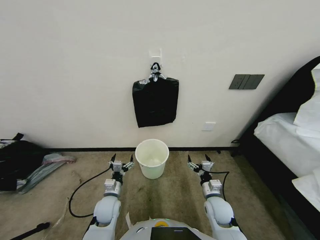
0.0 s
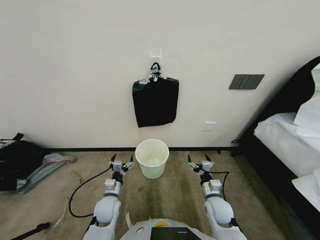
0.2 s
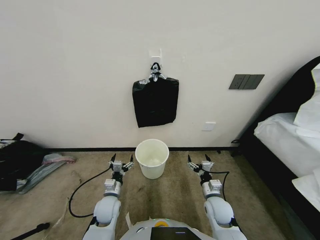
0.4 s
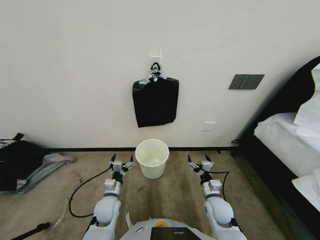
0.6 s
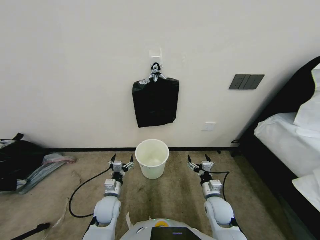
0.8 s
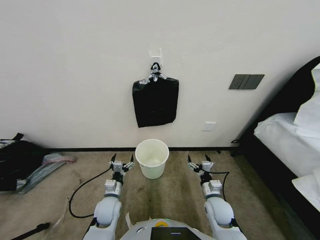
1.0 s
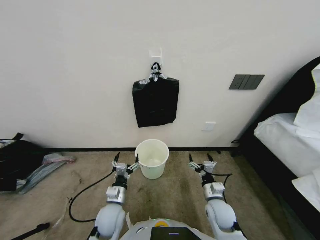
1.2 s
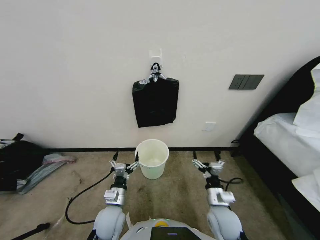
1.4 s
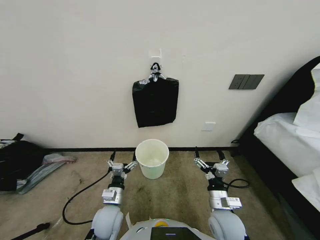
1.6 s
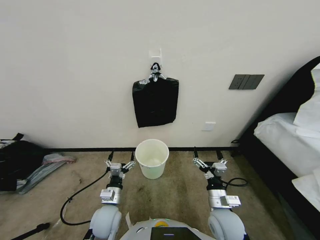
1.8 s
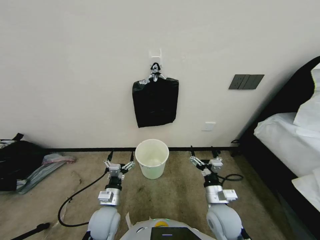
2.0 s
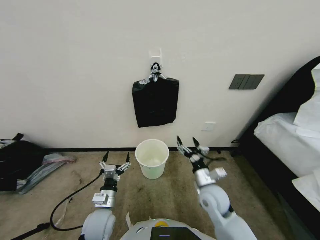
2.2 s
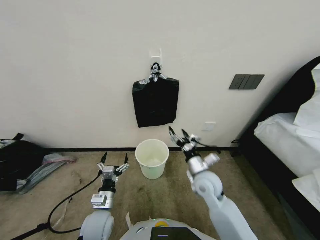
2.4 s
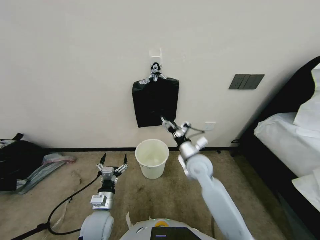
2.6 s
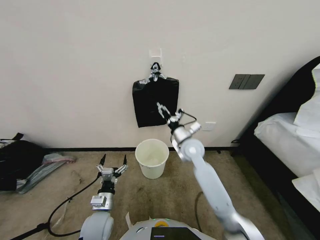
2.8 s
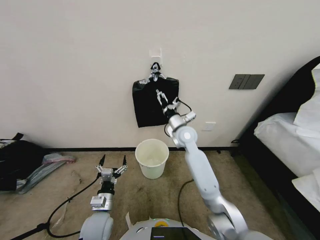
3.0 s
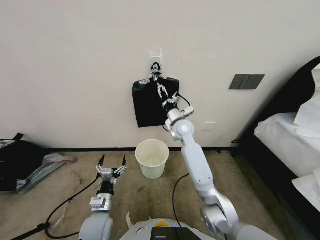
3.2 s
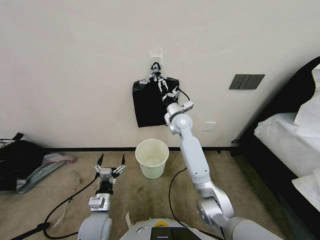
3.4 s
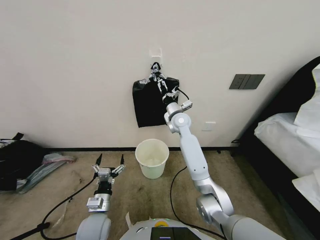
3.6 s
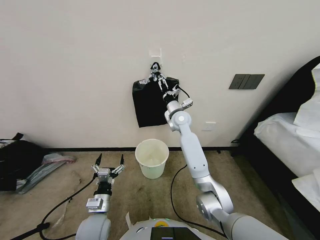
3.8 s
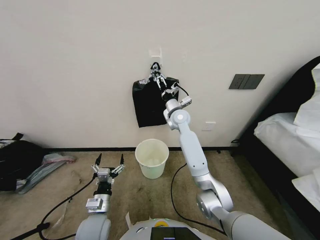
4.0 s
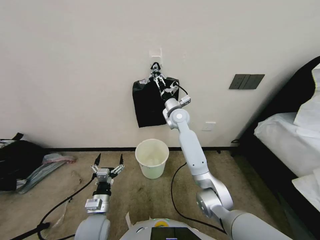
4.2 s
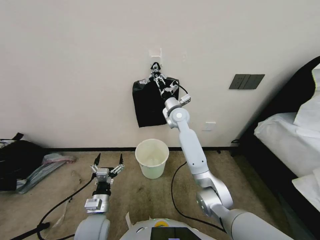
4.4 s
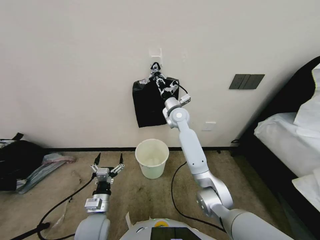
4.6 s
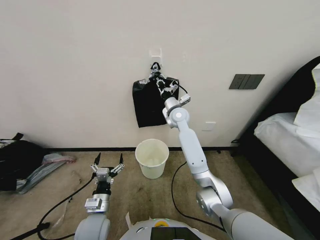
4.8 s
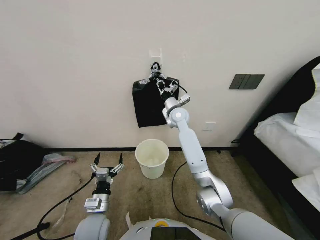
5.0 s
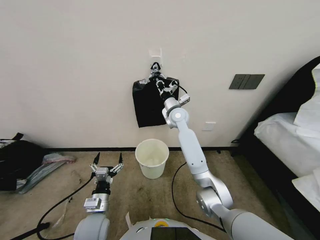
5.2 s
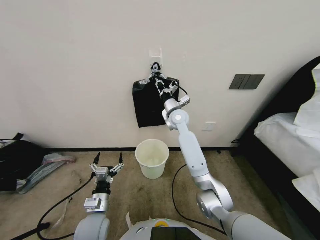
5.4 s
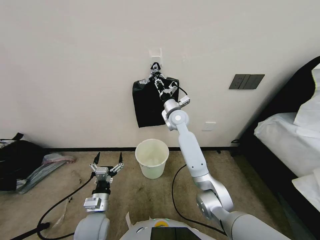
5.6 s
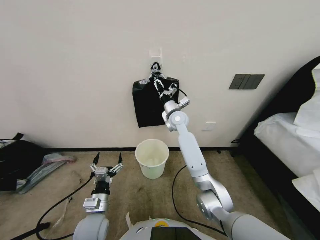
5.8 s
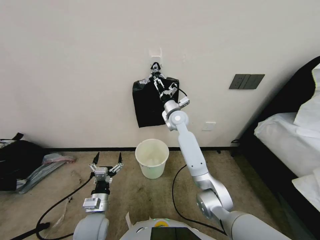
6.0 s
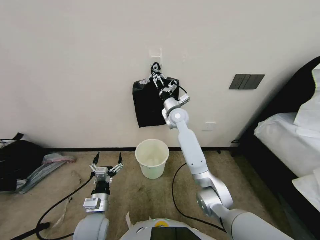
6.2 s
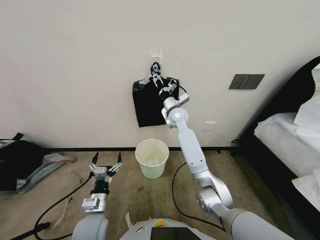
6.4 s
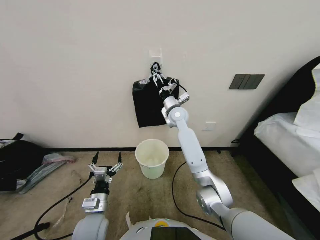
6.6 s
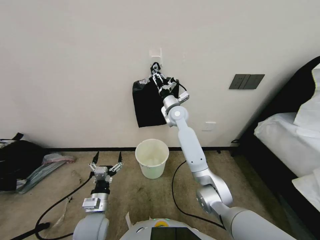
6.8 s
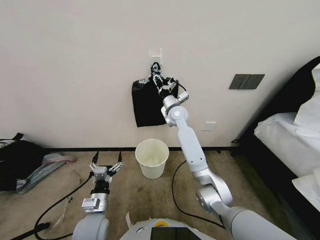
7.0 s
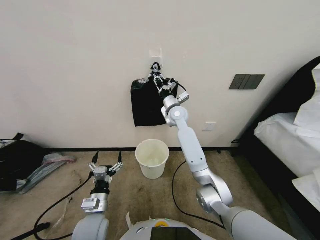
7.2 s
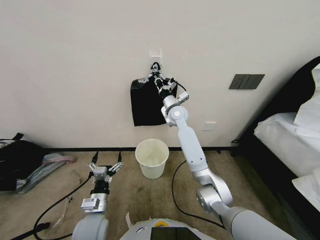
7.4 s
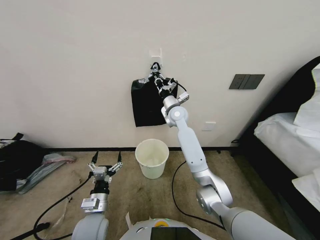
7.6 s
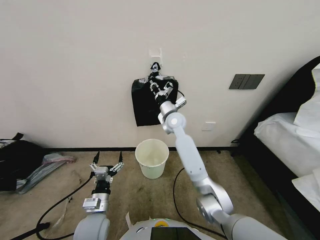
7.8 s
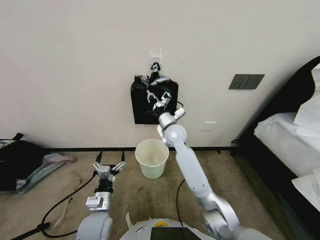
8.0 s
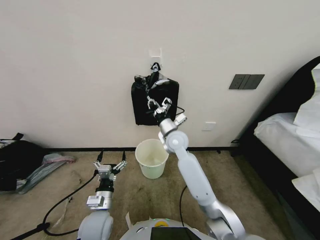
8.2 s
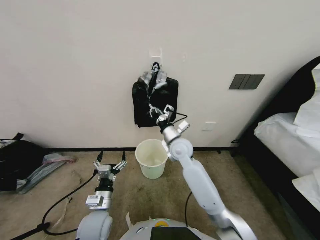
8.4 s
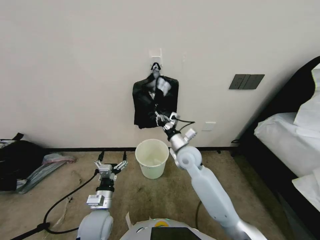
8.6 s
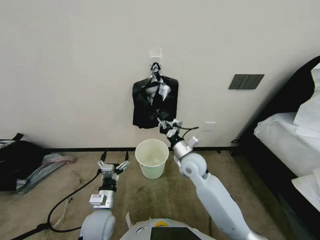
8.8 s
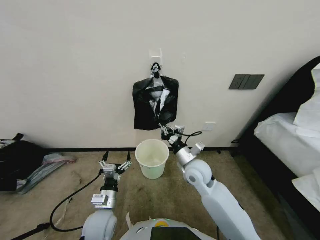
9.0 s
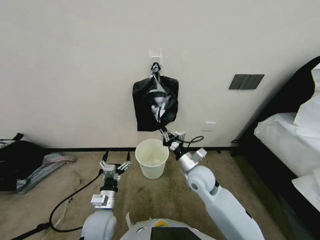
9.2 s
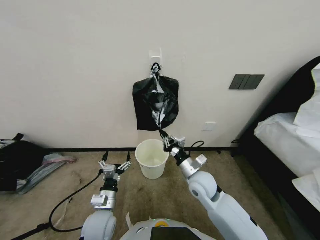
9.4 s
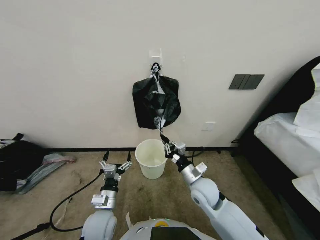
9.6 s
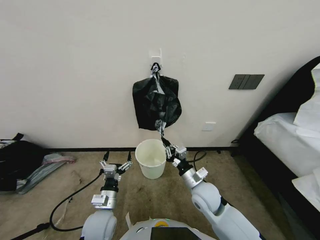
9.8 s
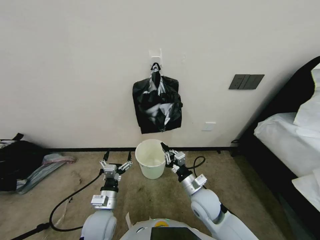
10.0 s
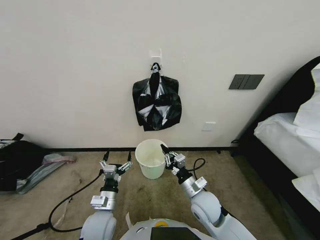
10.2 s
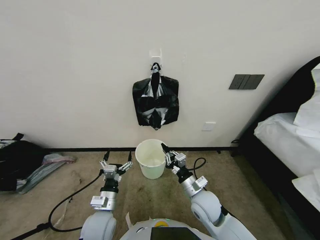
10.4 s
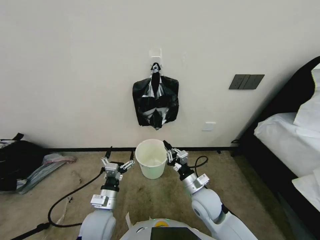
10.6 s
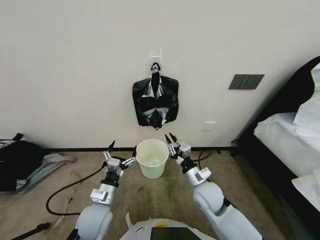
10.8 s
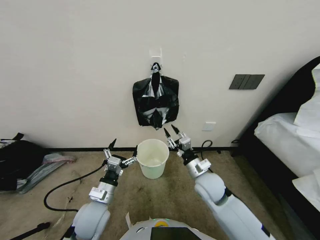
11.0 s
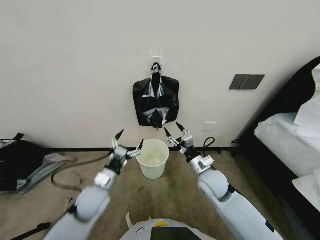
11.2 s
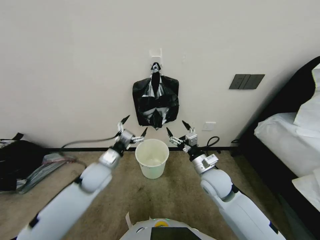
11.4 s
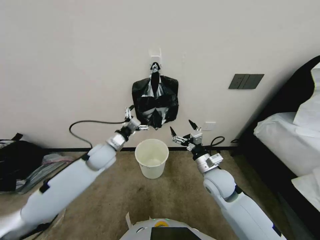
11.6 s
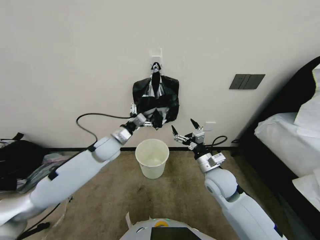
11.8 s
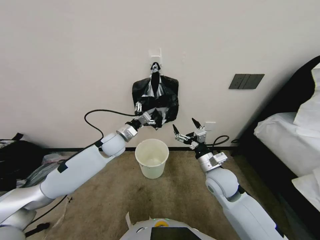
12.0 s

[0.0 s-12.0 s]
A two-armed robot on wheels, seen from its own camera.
Task of the whole recording: Place a trash bag onto the trash bin.
1.6 to 3.0 s: The right gripper goes some 30 cm forward and upward.
3.0 to 4.4 s: The right gripper is displaced forward by approximately 10 cm, and closes.
4.4 to 6.0 s: The right gripper closes and opens again.
6.0 to 7.6 s: The right gripper closes its fingers.
7.6 to 9.0 s: The right gripper shifts about 25 cm backward and downward.
9.0 to 10.4 s: The right gripper goes roughly 15 cm backward and downward.
10.4 to 12.0 s: The left gripper travels forward and upward by approximately 30 cm; the right gripper travels upward, forward and to the right by some 10 cm, and opens its fingers.

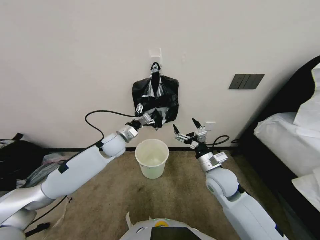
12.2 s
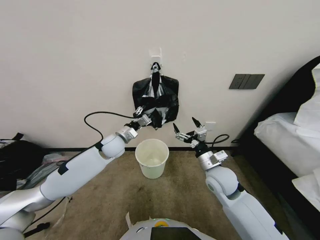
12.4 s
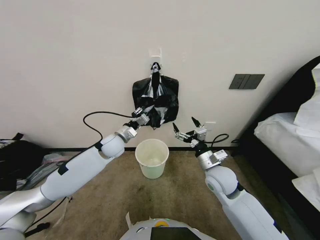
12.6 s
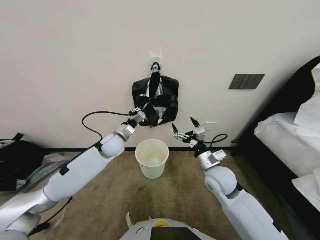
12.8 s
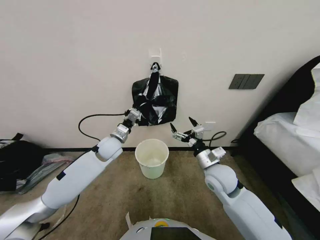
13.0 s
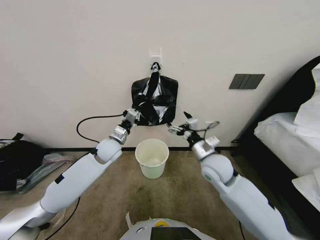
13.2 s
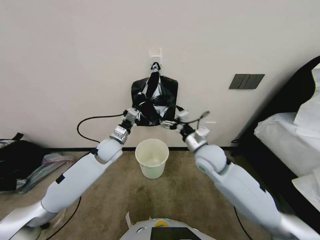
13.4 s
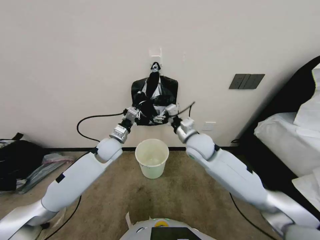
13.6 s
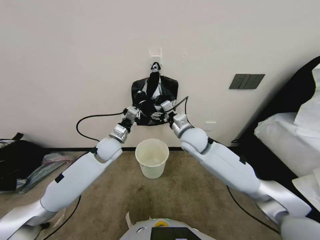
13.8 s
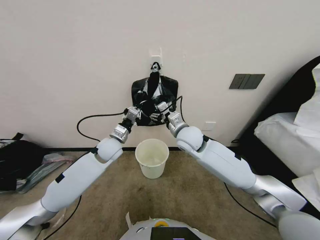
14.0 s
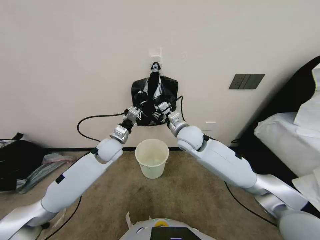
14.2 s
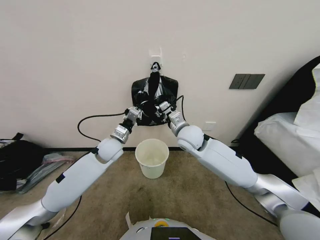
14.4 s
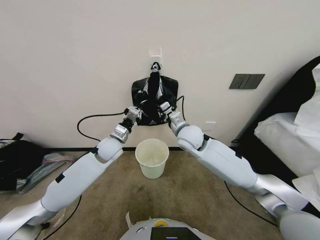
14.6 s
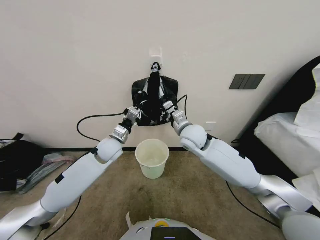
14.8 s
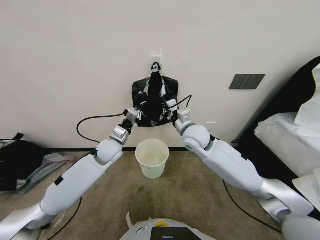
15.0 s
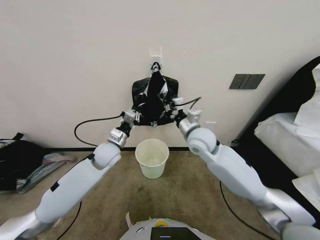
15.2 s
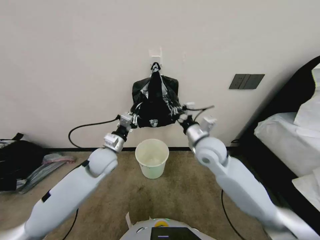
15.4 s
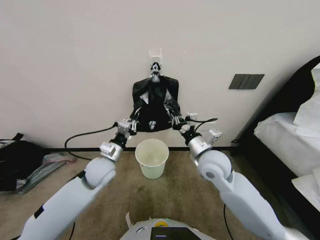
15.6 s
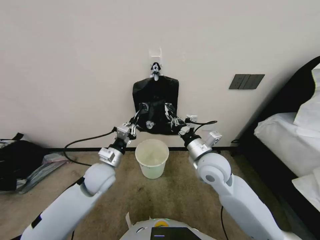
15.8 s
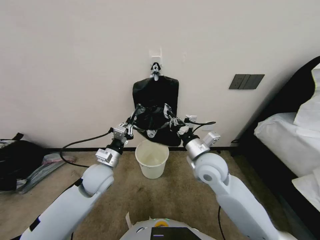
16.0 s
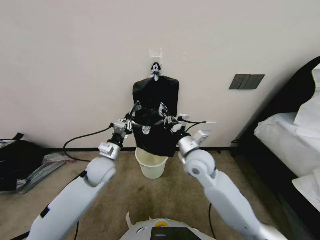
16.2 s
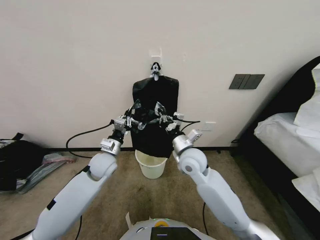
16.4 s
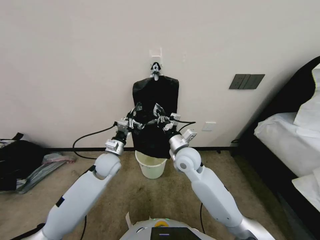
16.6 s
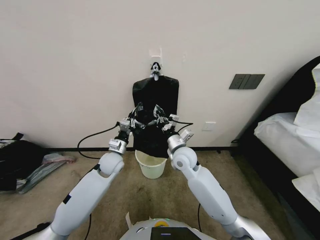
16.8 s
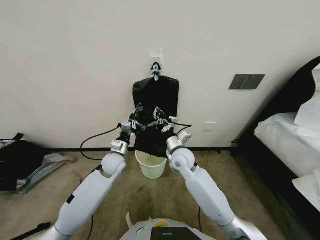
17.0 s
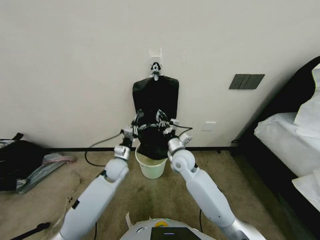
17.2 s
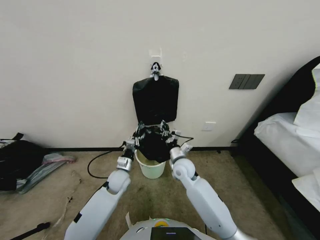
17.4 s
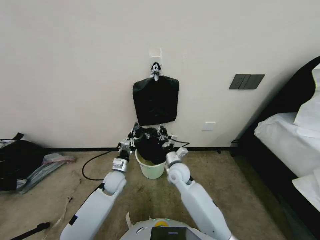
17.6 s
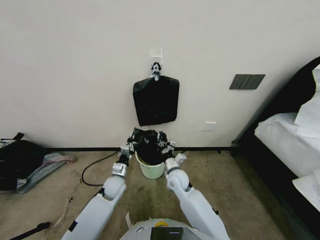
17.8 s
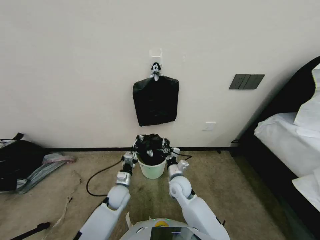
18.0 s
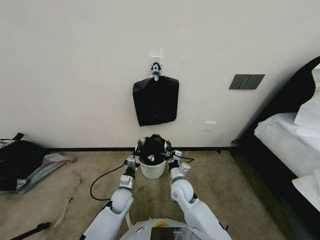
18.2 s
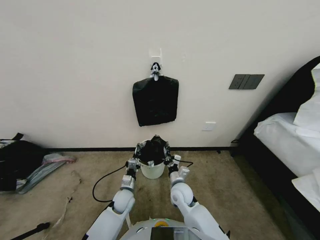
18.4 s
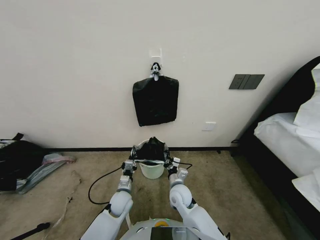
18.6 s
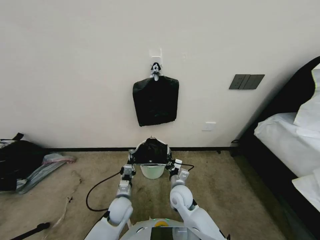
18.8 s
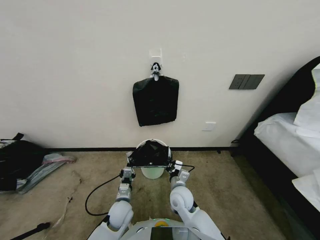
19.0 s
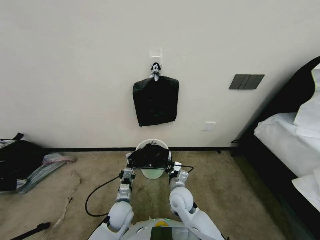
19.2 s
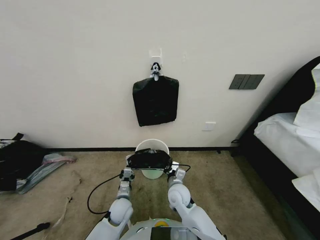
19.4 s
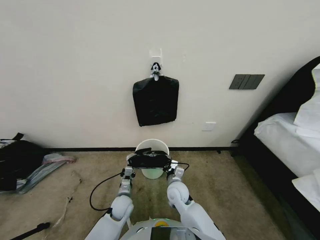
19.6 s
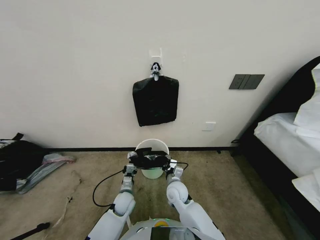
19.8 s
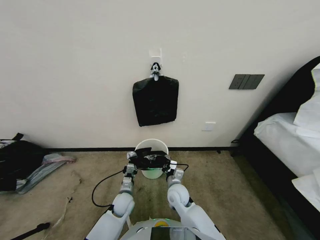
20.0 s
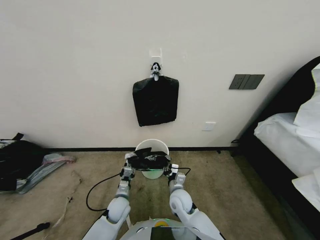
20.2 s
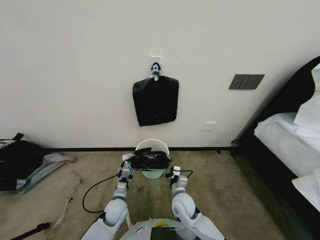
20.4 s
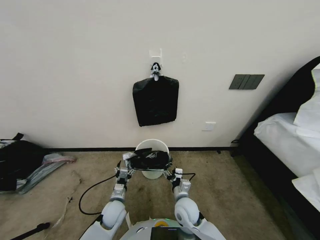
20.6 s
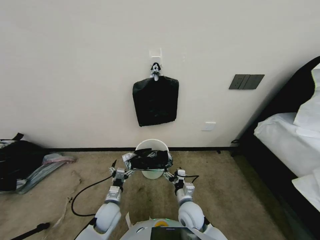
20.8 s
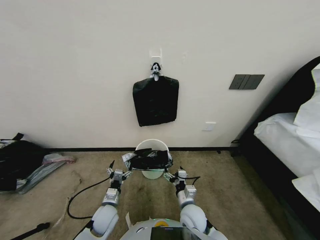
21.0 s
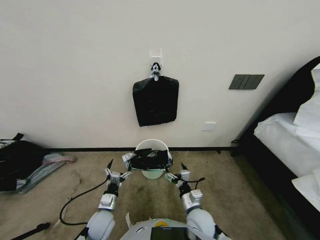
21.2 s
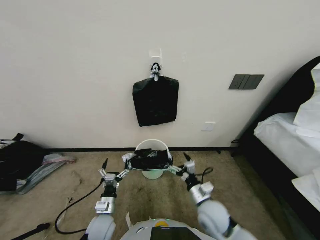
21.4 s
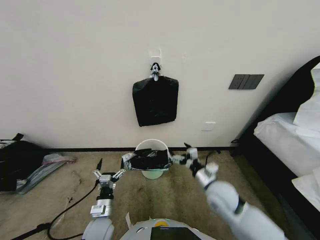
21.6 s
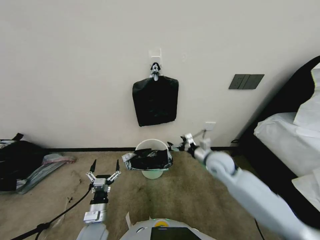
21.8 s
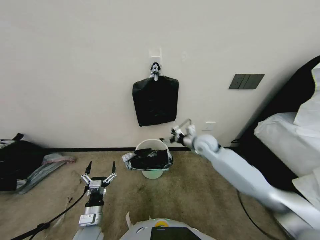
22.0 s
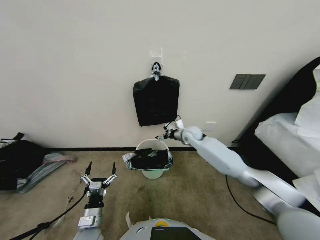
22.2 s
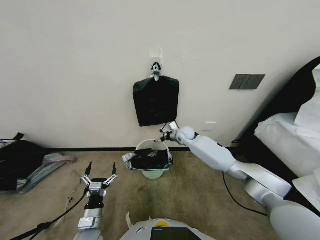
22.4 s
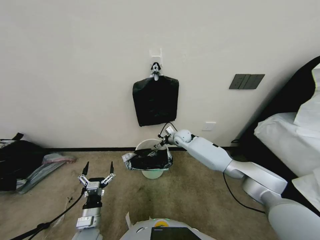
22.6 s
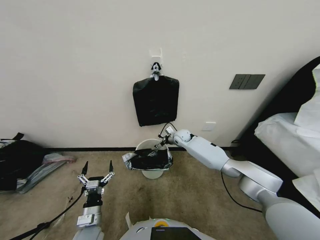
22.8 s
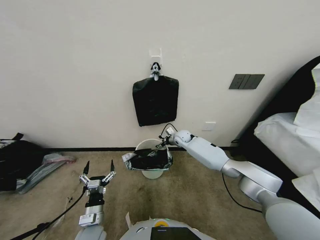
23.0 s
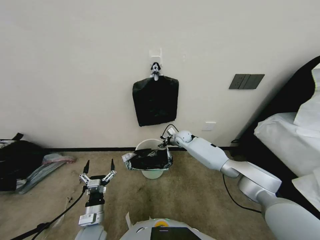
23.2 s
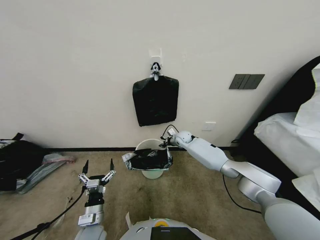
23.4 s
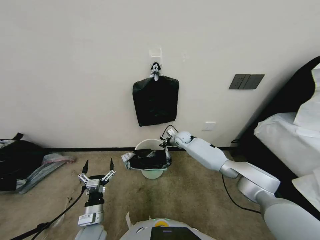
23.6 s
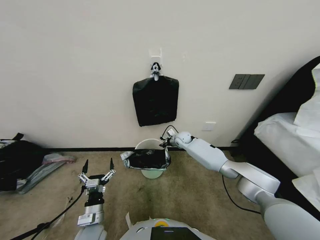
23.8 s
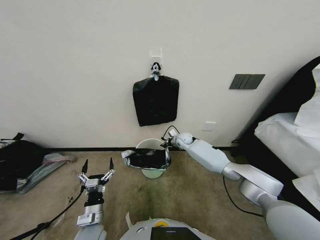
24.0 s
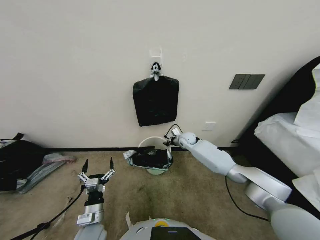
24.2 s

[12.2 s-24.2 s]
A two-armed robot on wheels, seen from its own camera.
Task of the whole recording: Place a trash bag onto the trash bin.
12.2 to 13.8 s: The left gripper closes. Meanwhile the right gripper travels forward, upward and to the left by roughly 15 cm.
13.8 to 15.2 s: The right gripper closes.
15.2 to 16.6 s: The left gripper travels backward and back again, approximately 10 cm each way. Meanwhile the right gripper moves downward, approximately 5 cm.
16.6 to 18.2 s: The right gripper shifts roughly 15 cm downward, while the left gripper travels downward and backward by about 20 cm.
19.8 to 21.2 s: The left gripper heads backward and to the left, covering roughly 10 cm, and opens up, while the right gripper moves backward and to the right, approximately 10 cm, and opens its fingers.
21.2 to 22.6 s: The left gripper moves backward, some 5 cm; the right gripper is displaced forward by roughly 35 cm.
22.6 to 24.2 s: The right gripper closes.
